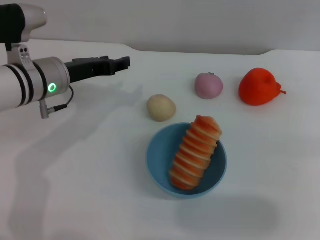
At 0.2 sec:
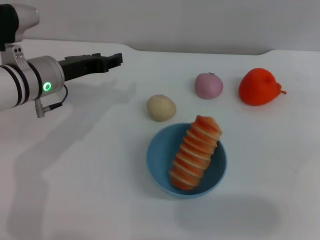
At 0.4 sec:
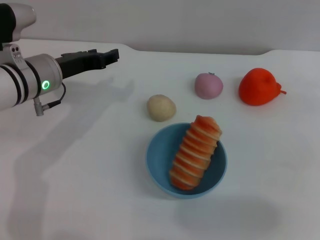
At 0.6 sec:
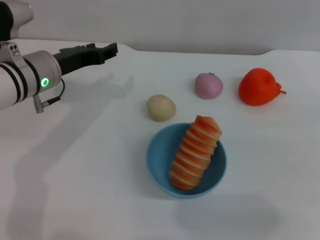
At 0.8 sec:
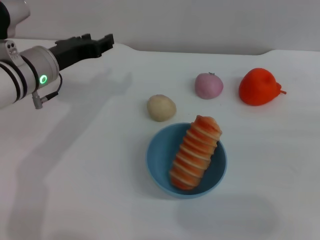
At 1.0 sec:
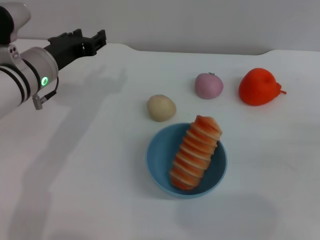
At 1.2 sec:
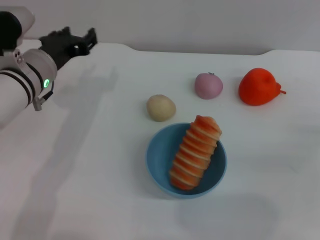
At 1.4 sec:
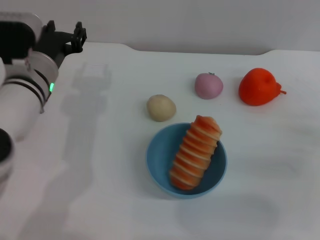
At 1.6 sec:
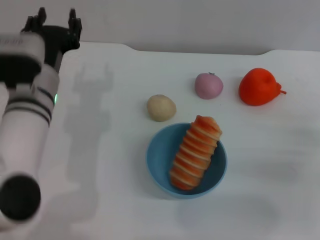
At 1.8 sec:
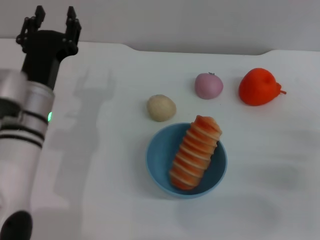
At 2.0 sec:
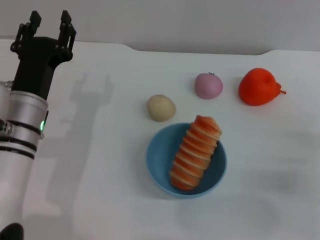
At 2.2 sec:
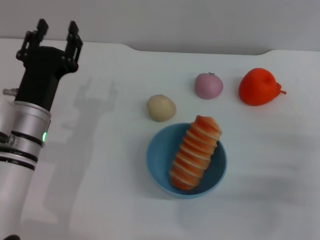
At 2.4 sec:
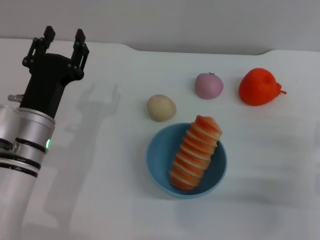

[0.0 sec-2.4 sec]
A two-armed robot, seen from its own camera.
Task of the whole recording: put the bread into the blue bowl and pour it out repeatedly.
1.2 sec to 2.4 sec: The left gripper heads backward and downward, covering some 10 cm.
